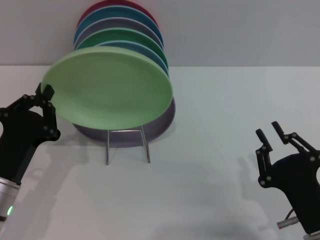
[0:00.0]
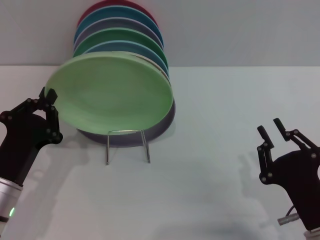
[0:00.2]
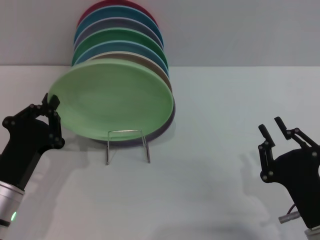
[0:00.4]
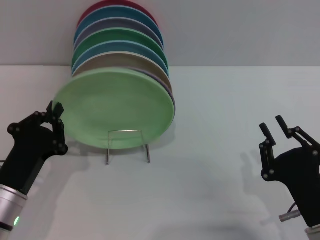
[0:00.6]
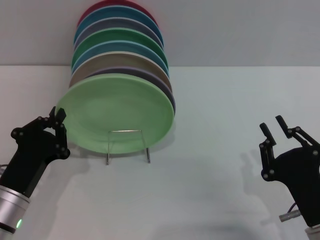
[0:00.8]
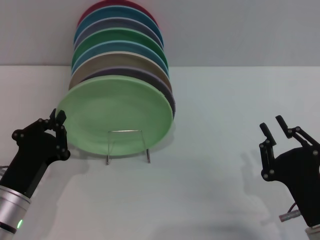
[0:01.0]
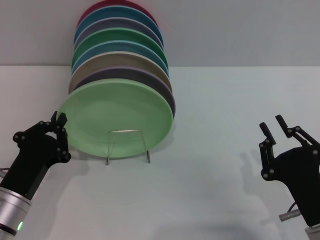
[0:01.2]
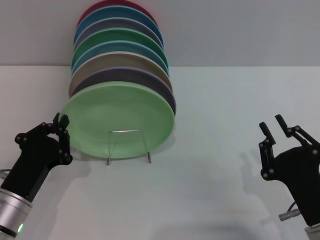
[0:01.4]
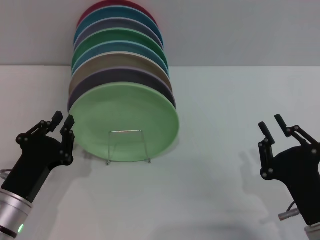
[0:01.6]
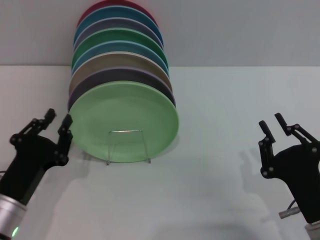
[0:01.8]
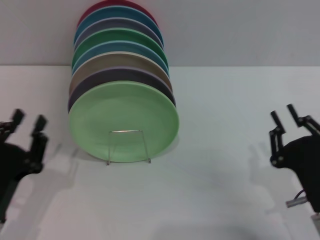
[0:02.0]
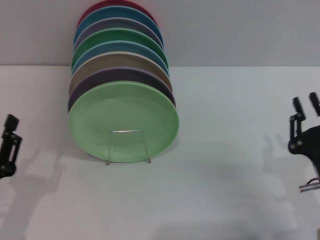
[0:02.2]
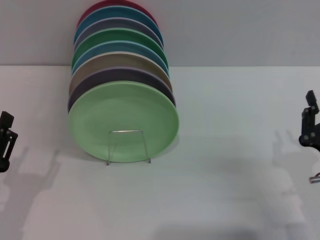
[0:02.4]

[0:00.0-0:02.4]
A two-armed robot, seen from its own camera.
Task of the whole recording: Grip the plate with one hand, pass it to the other, then set it on the shelf.
Step, 0:00.0 to 0:01.8: Place the plate on the shelf with the left gripper.
0:00.0 to 0:01.2: The grippers move only a little.
0:01.2 to 0:02.4: The left gripper shifts roughly 5 cm backward, and opens up.

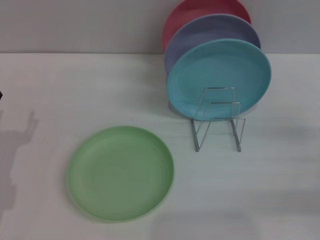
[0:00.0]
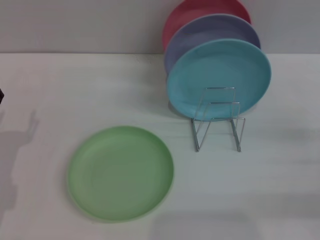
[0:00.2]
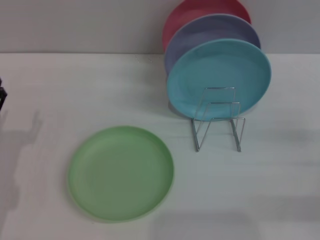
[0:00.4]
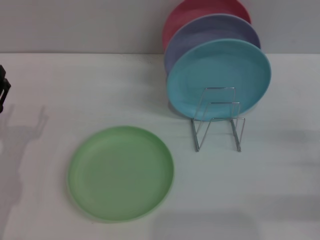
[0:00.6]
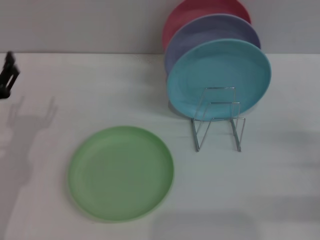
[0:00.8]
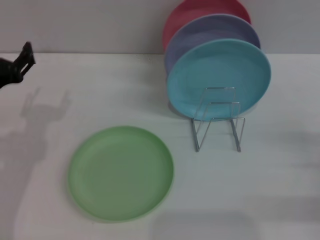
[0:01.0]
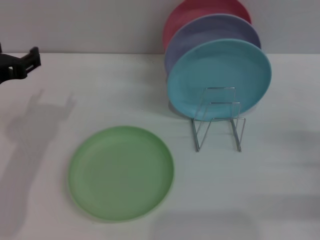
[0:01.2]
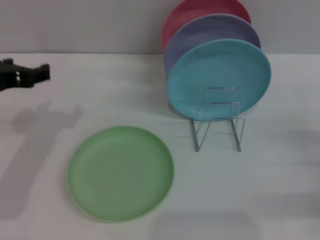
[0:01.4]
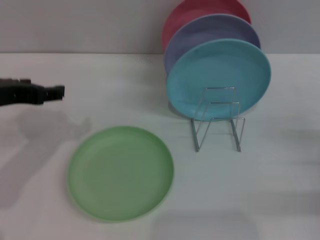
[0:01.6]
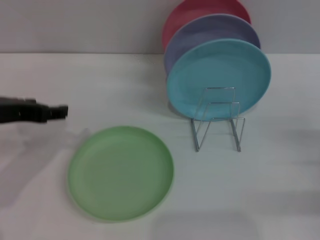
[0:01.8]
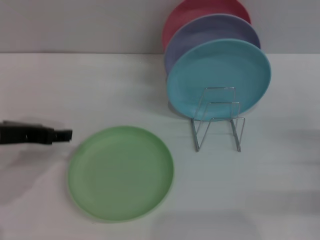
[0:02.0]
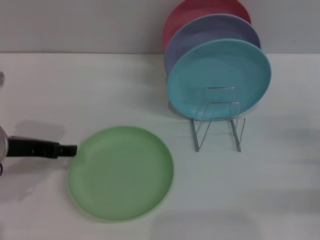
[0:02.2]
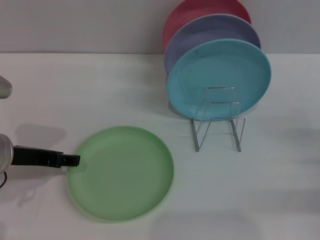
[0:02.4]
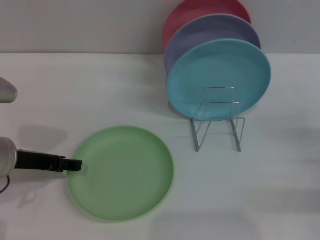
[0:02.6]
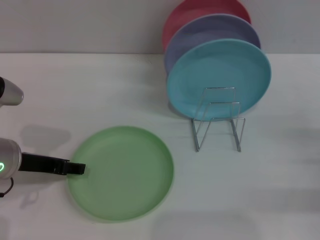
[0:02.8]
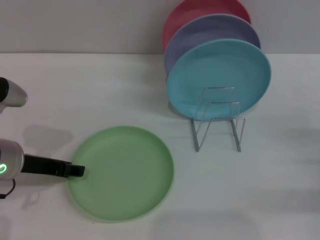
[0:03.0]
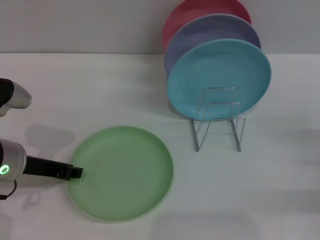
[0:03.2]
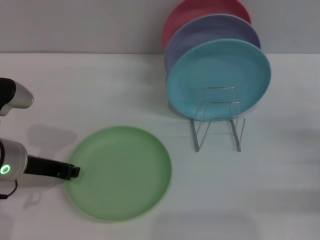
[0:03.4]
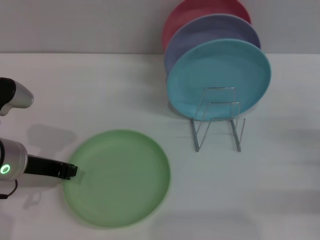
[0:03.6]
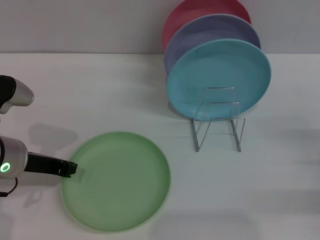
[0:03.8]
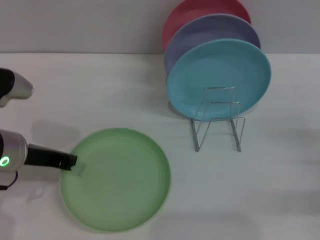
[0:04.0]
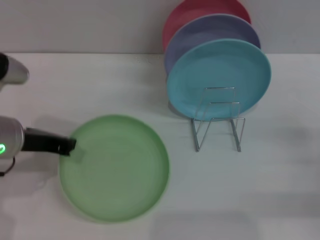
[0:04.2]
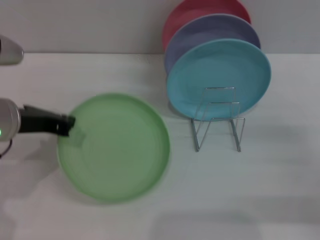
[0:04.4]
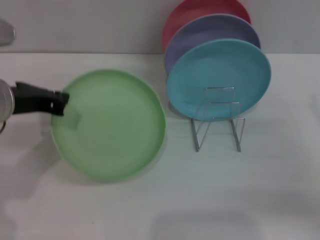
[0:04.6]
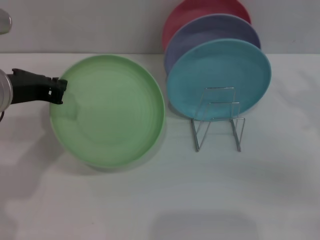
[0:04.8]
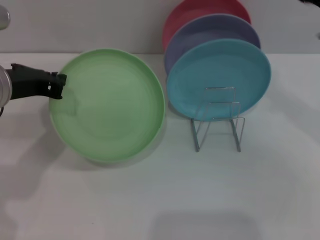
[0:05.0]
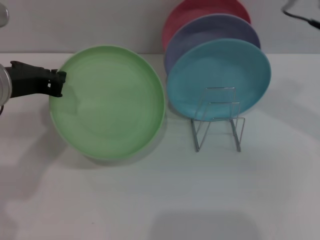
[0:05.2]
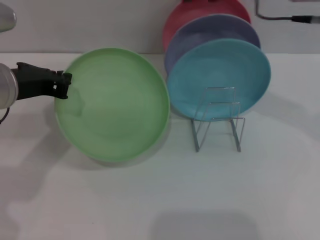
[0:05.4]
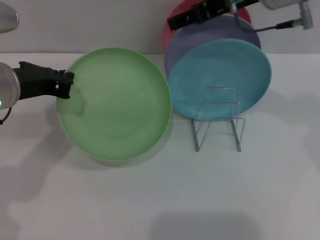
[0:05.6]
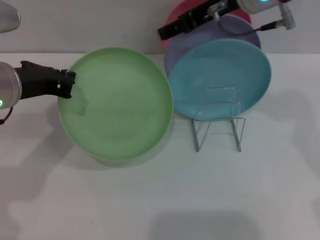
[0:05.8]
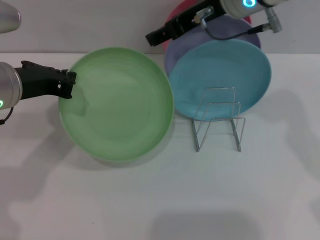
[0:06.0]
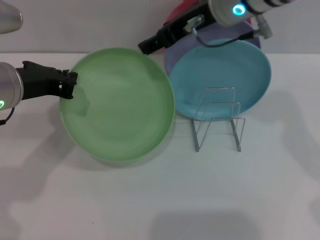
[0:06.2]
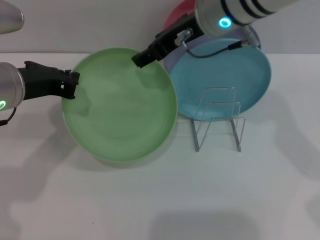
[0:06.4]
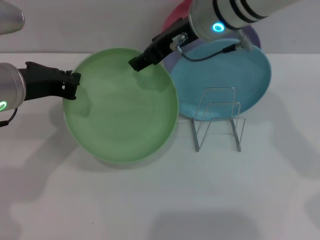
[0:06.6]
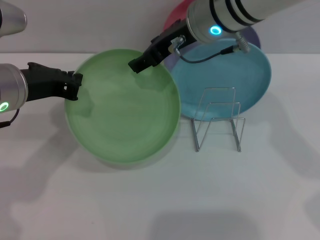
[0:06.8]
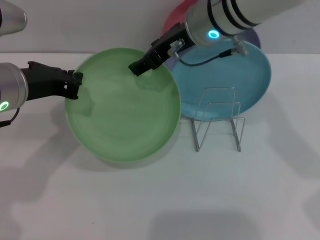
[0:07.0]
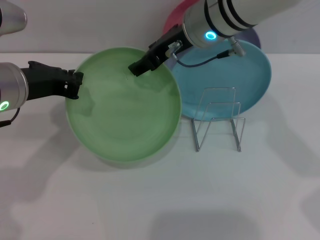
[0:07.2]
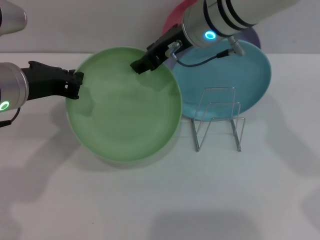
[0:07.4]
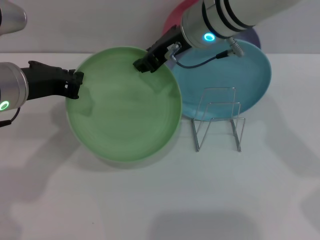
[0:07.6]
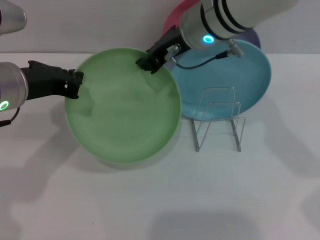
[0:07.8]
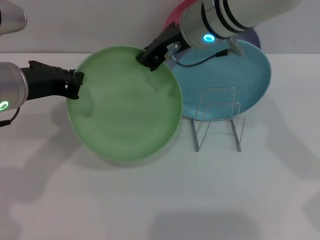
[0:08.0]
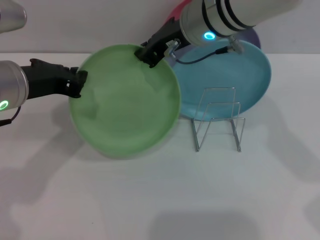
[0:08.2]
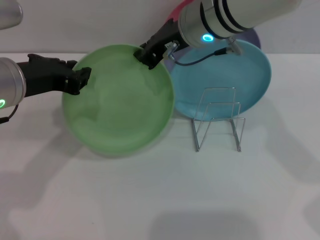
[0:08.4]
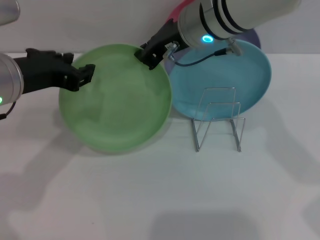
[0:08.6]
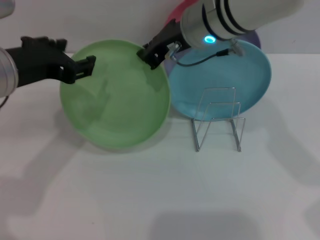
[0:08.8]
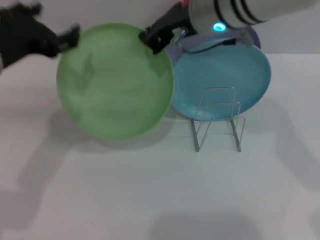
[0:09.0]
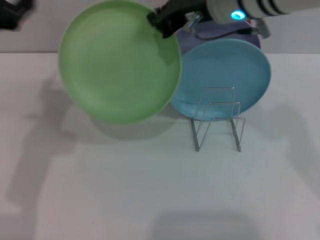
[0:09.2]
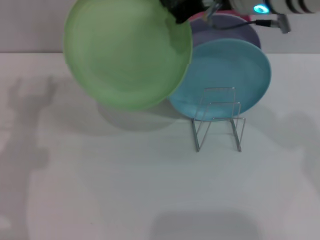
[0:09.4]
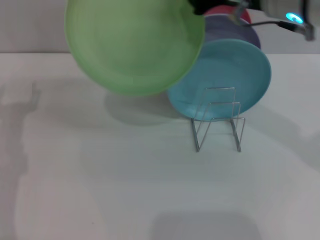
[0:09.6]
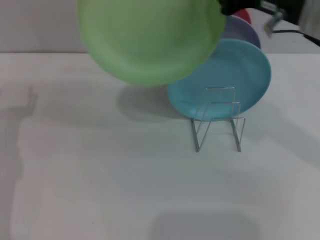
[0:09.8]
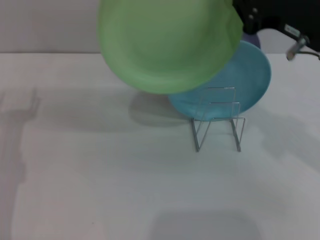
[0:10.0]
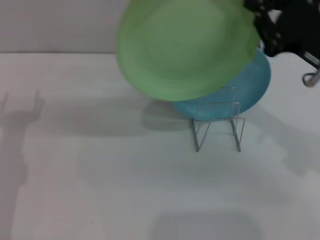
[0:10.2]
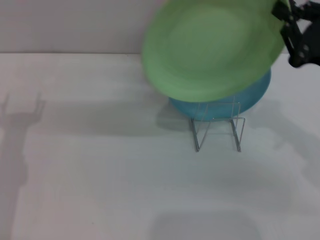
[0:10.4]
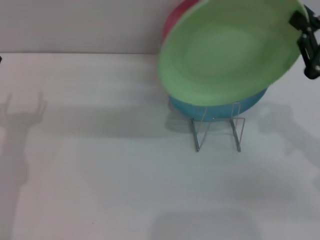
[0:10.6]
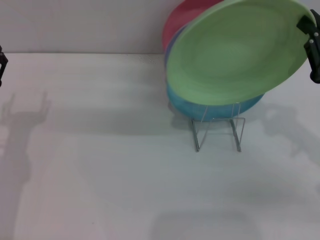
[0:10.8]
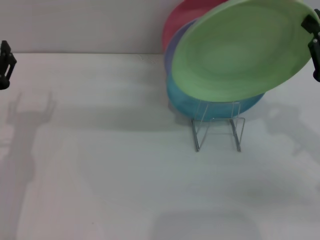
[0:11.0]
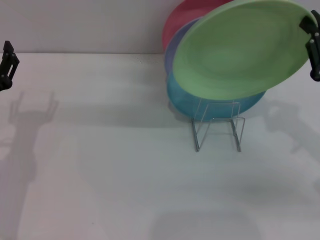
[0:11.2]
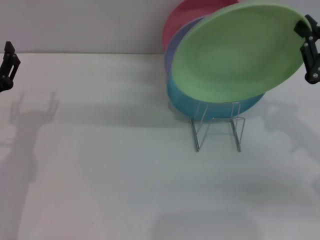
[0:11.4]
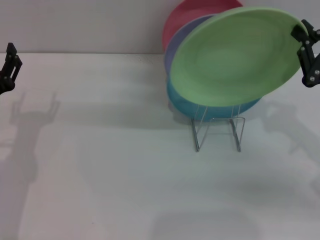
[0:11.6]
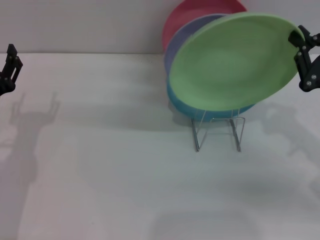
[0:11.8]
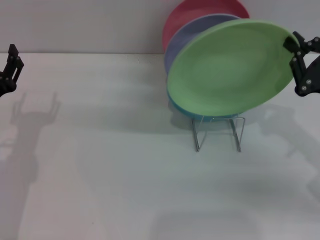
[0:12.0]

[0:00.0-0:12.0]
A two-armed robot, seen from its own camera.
Task of the whole recording: Grip the plate with one hand, pass it to the other, then set it on the shelf.
Step, 0:00.0 to 0:04.6: Pick up the plate with the left gripper.
Step, 0:04.8 to 0:09.2: Pass the plate from the left gripper to the right gripper.
0:00.0 to 0:01.6: The left gripper travels upward by about 15 cm.
0:01.6 to 0:03.0: The left gripper moves downward, roughly 10 cm.
0:03.0 to 0:04.4: The left gripper is displaced upward by about 5 cm, and closes its fingers.
0:04.4 to 0:06.0: The right gripper shifts about 35 cm to the left, upward and forward.
0:06.0 to 0:07.6: The right gripper shifts by about 5 cm, and closes up.
0:07.6 to 0:09.0: The right gripper closes up. Meanwhile the left gripper opens.
0:09.0 to 0:10.4: The left gripper heads downward and to the left, covering about 15 cm, while the right gripper travels to the right, backward and downward by about 25 cm.
0:10.4 to 0:12.0: The right gripper is displaced downward by about 5 cm.

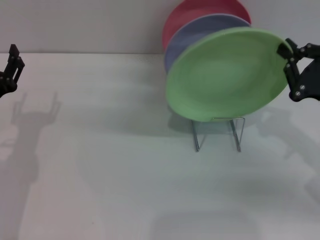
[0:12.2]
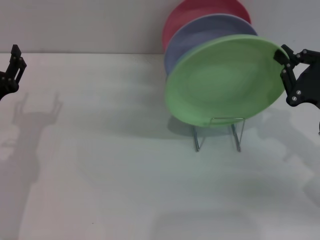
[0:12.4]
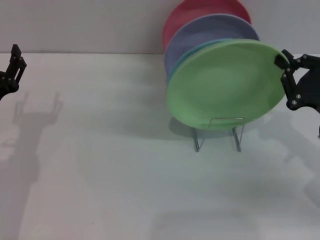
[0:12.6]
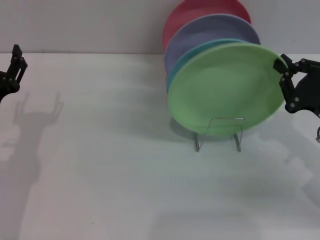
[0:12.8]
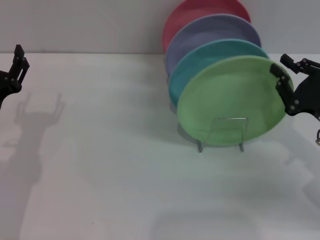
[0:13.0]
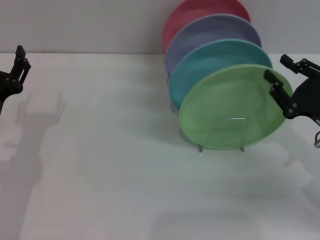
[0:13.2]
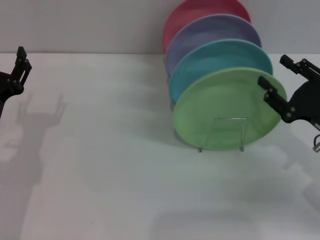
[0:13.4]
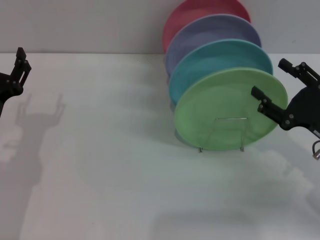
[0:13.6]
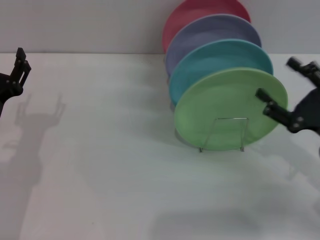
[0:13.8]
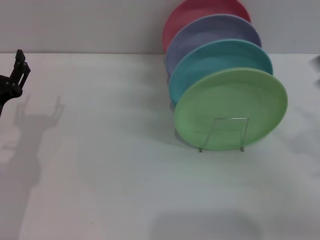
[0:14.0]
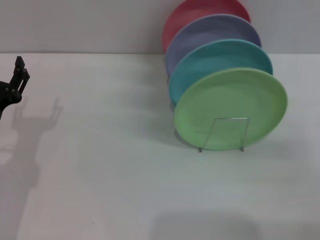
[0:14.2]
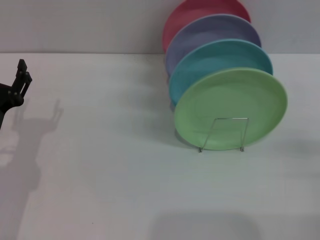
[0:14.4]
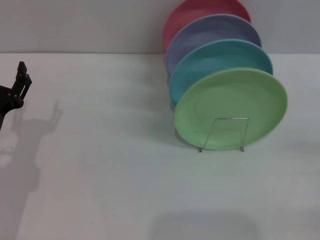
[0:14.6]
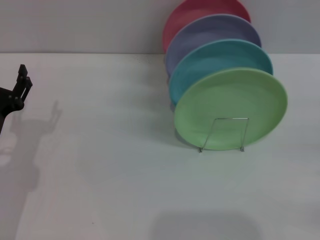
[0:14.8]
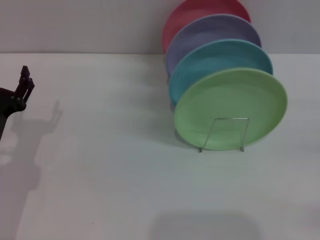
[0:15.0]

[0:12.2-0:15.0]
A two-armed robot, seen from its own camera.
Task of the whole recording: Grip the plate with one hand, pass it to the other, then set it on the shelf.
0:12.2 to 0:13.6: The right gripper opens.
0:13.6 to 0:15.0: The right gripper goes roughly 10 cm to the right and backward.
